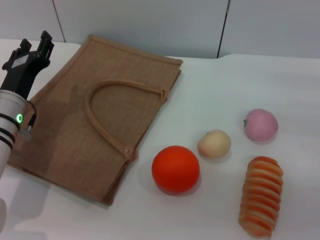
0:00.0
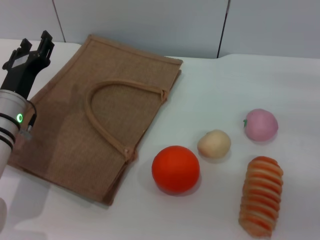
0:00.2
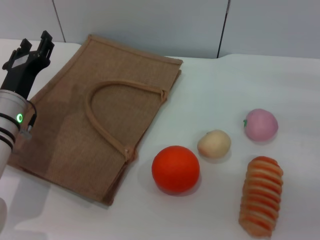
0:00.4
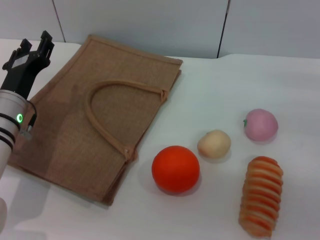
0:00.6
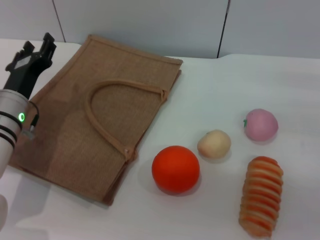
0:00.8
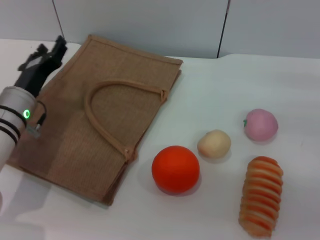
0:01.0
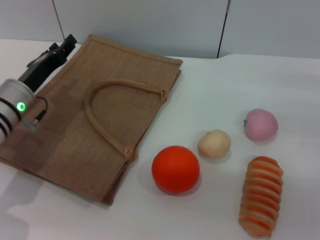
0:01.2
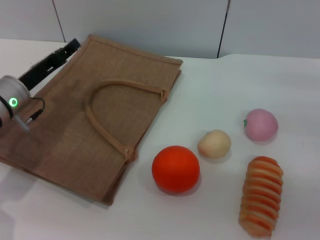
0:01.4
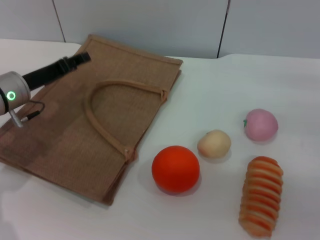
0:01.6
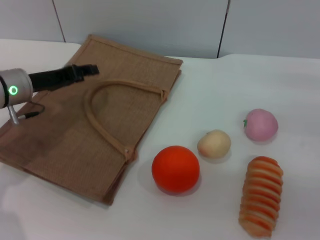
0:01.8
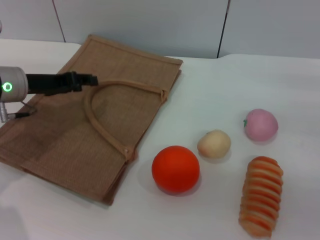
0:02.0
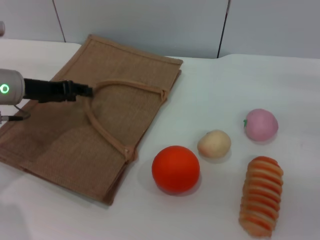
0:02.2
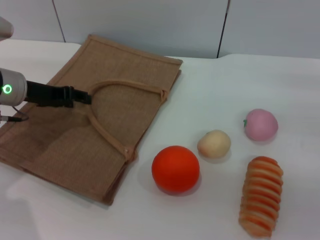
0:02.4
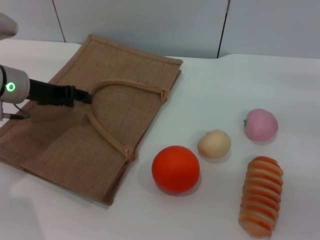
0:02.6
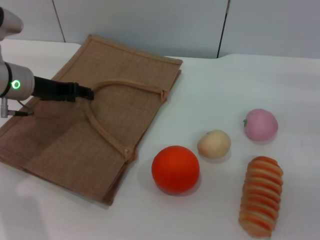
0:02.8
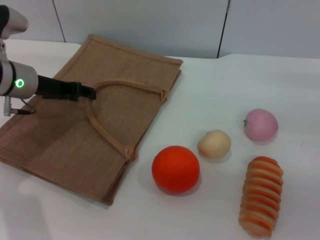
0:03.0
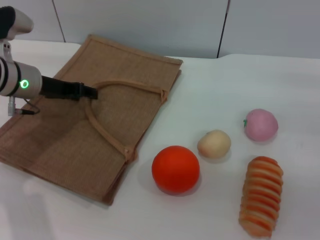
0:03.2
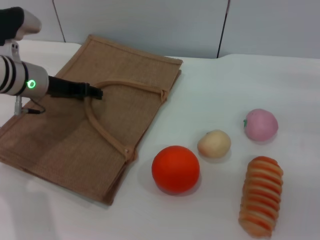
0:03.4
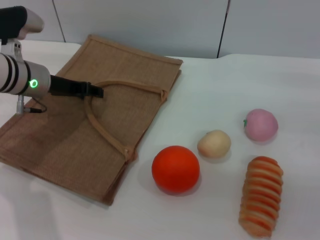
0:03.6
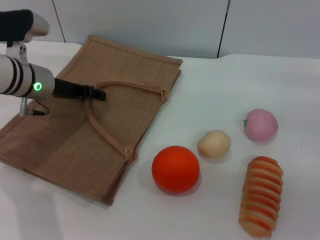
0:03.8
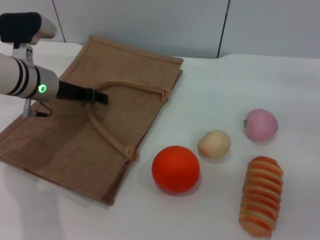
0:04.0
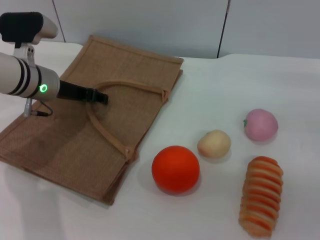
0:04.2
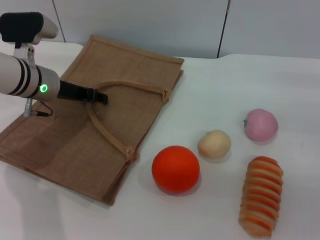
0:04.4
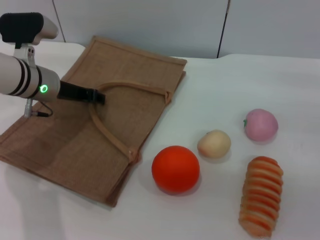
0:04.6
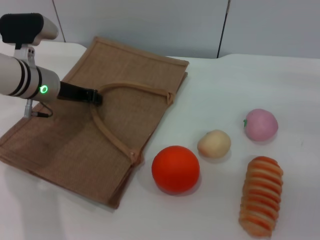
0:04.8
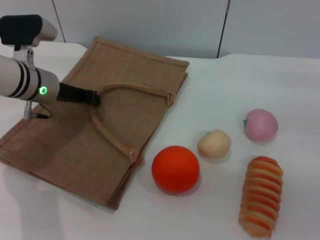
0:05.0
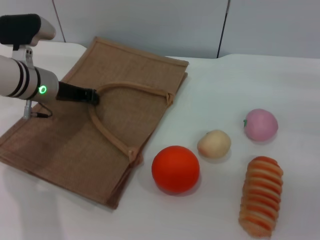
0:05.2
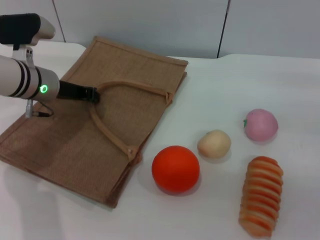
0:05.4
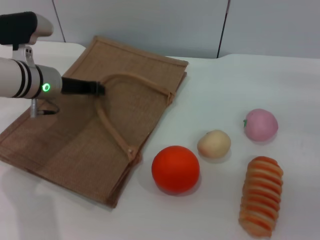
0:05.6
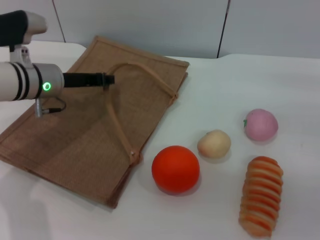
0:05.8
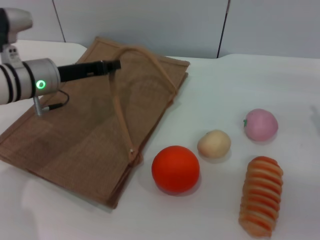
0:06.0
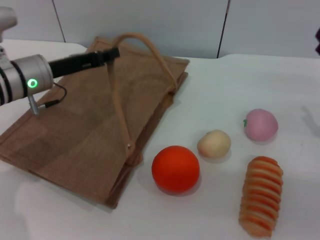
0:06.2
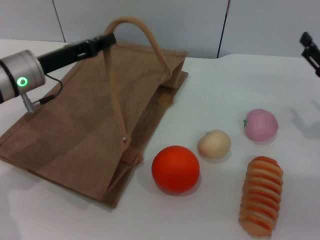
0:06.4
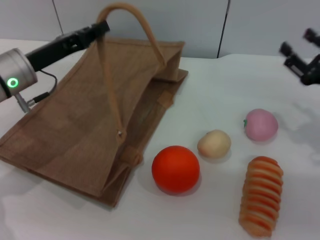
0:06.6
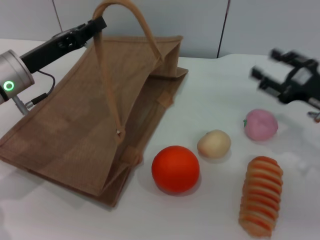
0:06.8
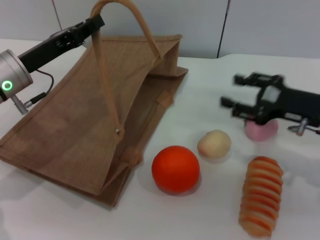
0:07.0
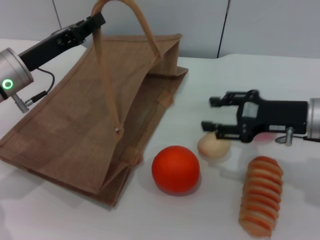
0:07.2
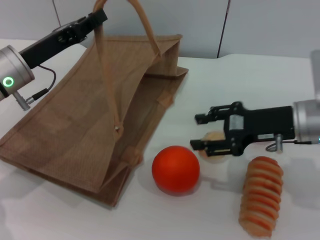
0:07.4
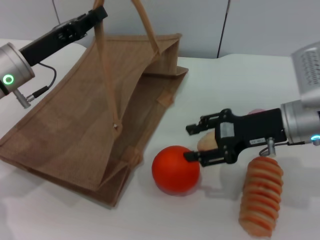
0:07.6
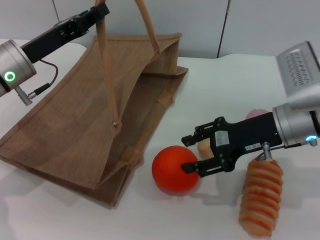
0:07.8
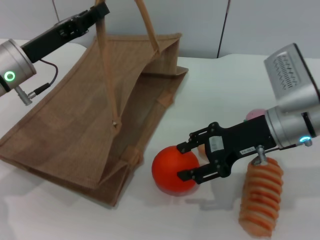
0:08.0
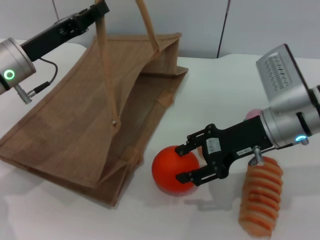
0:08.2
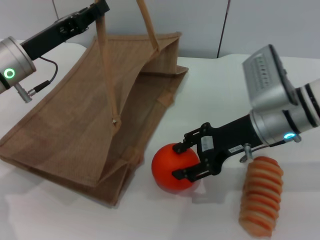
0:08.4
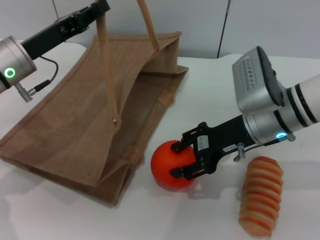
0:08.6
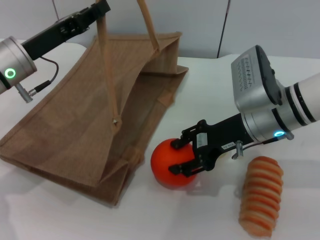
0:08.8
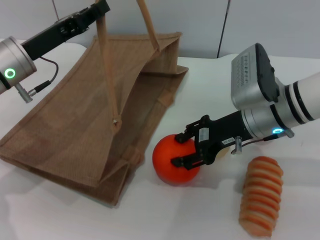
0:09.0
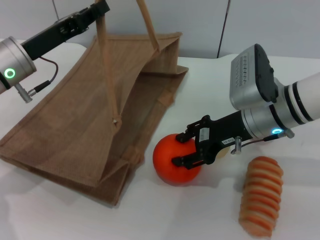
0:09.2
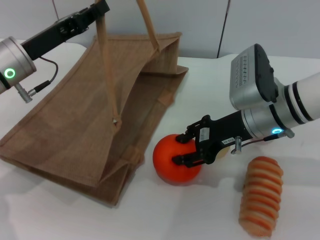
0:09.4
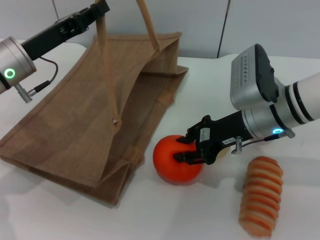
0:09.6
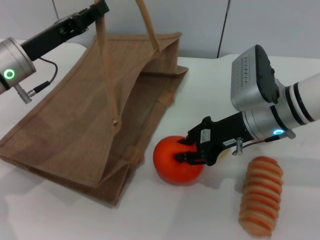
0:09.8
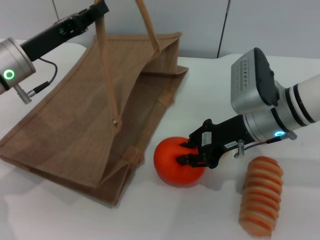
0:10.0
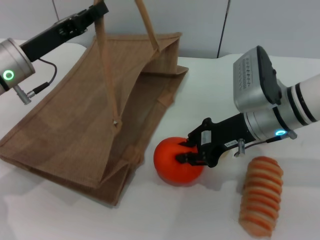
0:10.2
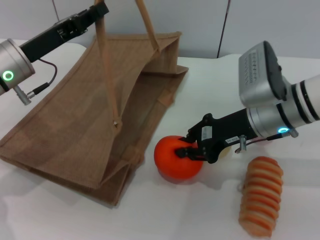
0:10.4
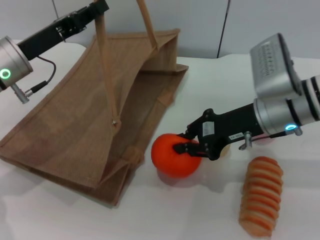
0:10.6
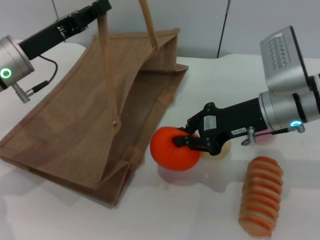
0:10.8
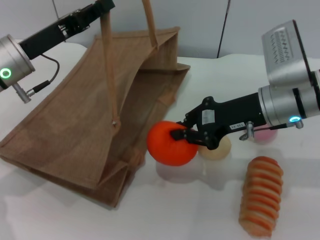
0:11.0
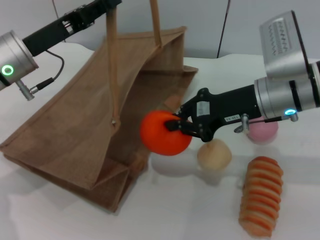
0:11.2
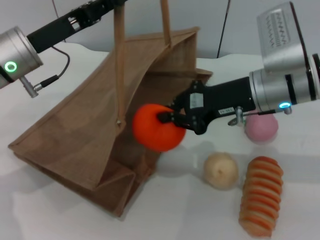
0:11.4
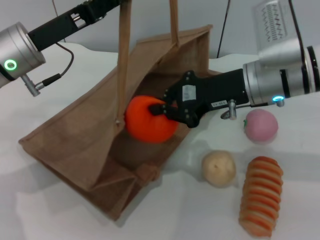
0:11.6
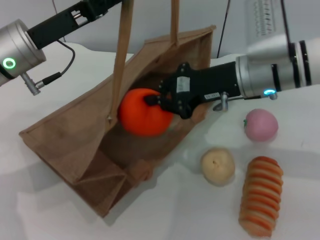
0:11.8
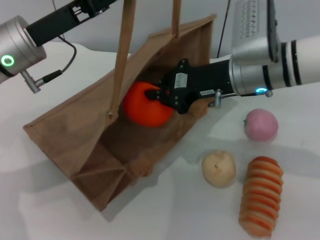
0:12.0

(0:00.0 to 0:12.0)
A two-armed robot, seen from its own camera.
Task of the whole recording: pick up the orange and peach from the table and place it in the brown handbag.
Step, 0:00.0 - 0:06.0: Lift the woven bag with the left gripper to open it.
Step, 0:06.2 - 0:11.2: Pick up the orange with the right gripper.
0:00.0 - 0:01.6: The left gripper moves roughly 5 cm.
0:01.6 - 0:03.0: The left gripper ends up some 5 cm from where it was.
0:03.0 - 0:04.4: There are only small adjustments of the grippers.
0:04.4 - 0:06.0: The left gripper closes up.
0:06.0 - 0:07.6: The right gripper goes some 15 cm to the left.
0:07.6 - 0:09.0: The right gripper changes place by approximately 5 cm.
0:09.0 - 0:10.4: The right gripper closes up.
0:10.4 - 0:12.0: The right gripper ends up roughly 5 cm from where it was. The left gripper shifts by about 5 cm.

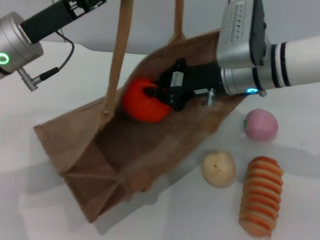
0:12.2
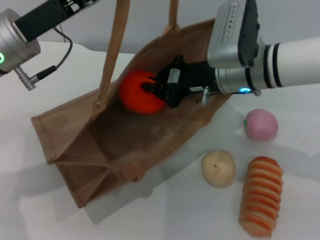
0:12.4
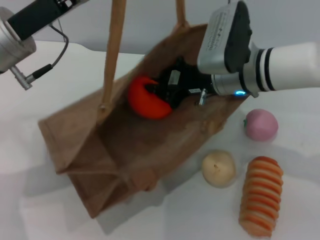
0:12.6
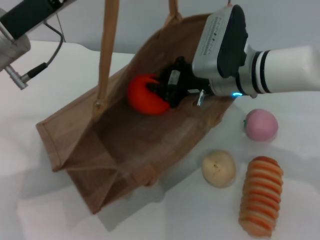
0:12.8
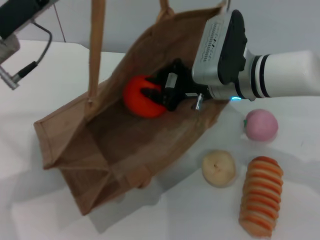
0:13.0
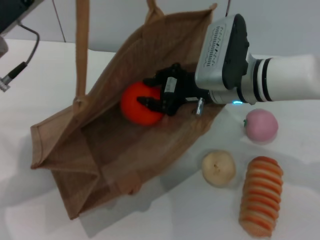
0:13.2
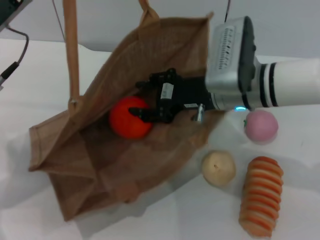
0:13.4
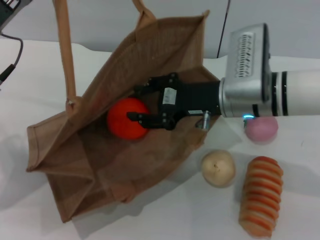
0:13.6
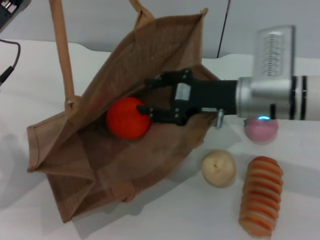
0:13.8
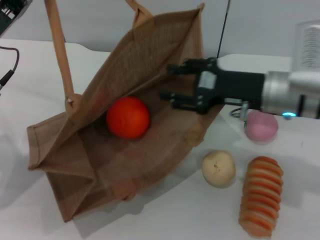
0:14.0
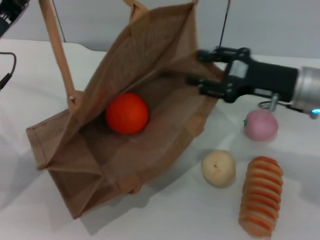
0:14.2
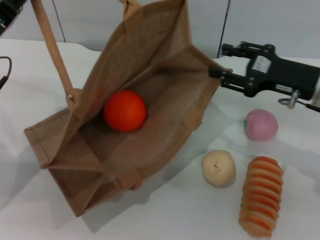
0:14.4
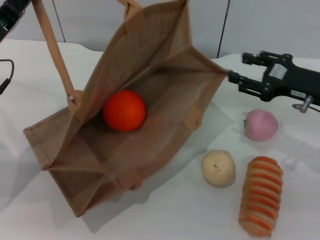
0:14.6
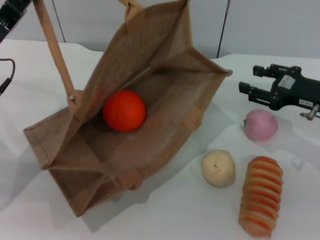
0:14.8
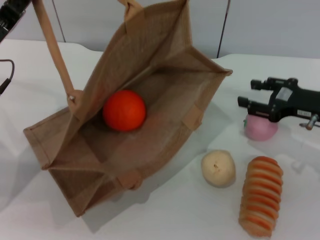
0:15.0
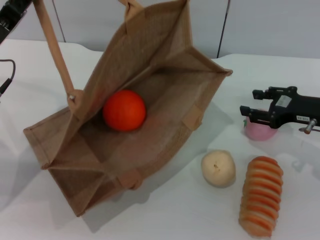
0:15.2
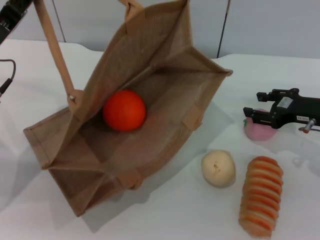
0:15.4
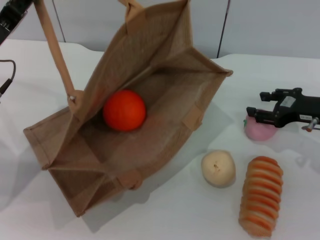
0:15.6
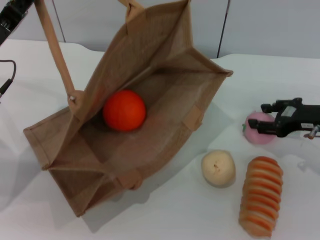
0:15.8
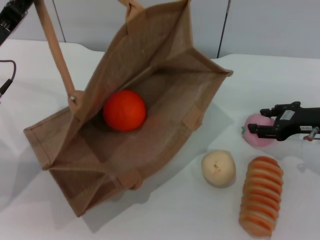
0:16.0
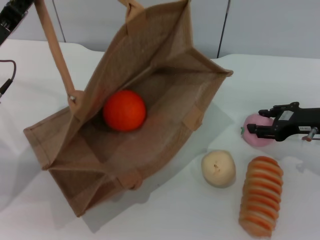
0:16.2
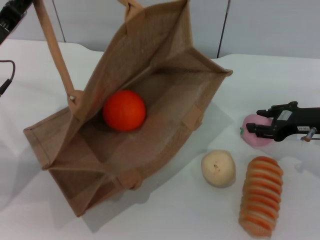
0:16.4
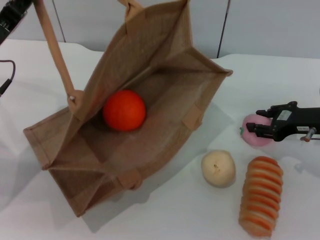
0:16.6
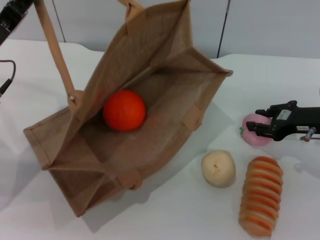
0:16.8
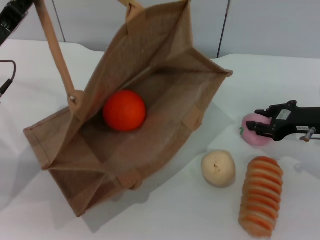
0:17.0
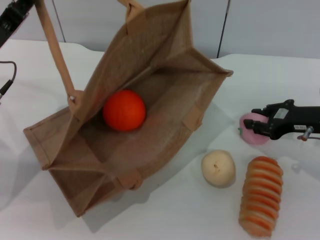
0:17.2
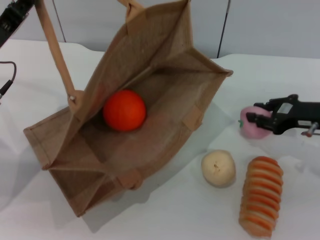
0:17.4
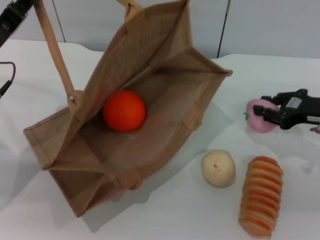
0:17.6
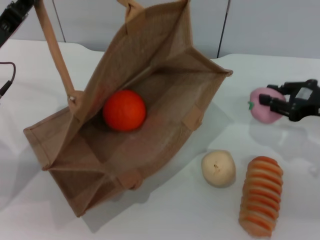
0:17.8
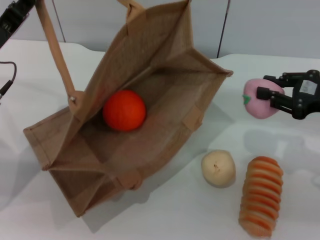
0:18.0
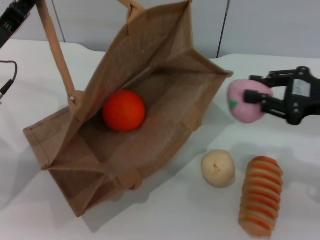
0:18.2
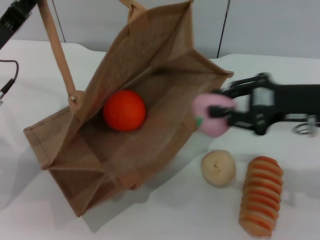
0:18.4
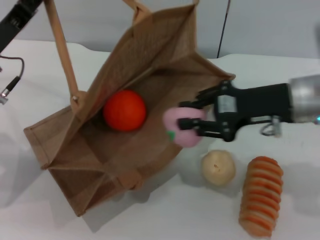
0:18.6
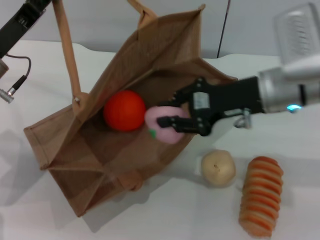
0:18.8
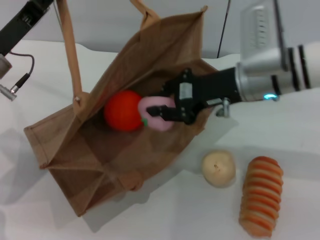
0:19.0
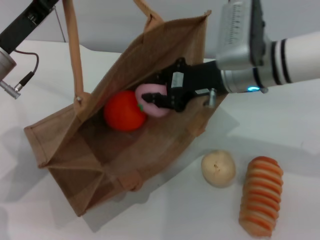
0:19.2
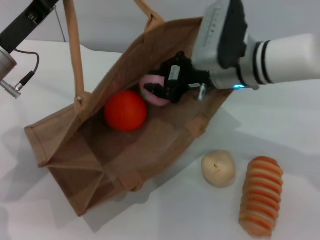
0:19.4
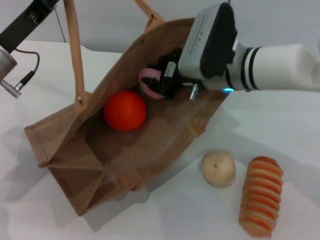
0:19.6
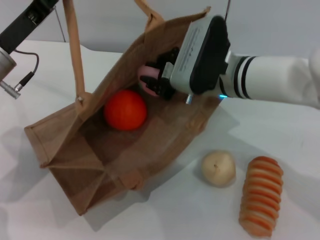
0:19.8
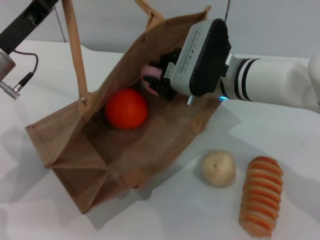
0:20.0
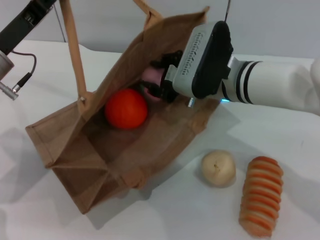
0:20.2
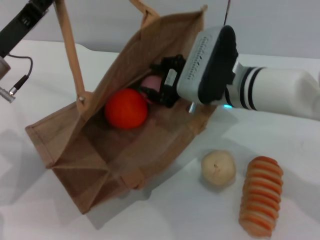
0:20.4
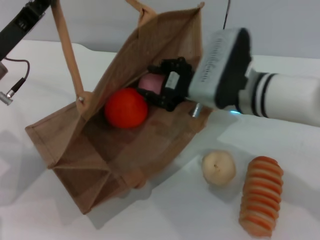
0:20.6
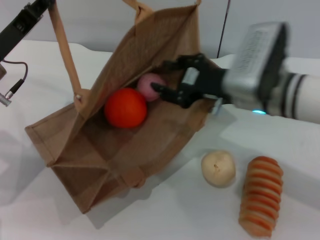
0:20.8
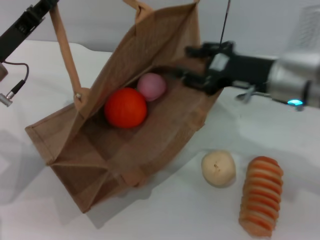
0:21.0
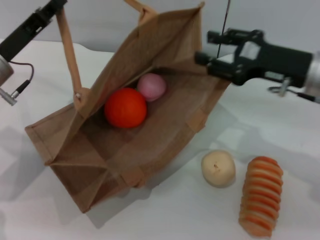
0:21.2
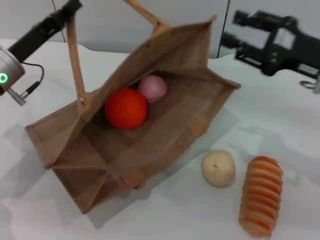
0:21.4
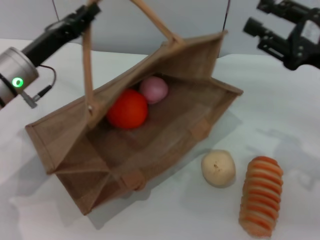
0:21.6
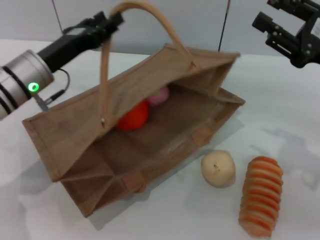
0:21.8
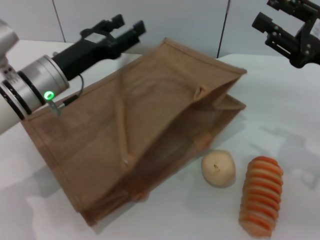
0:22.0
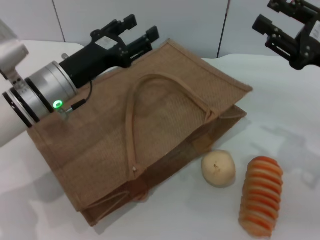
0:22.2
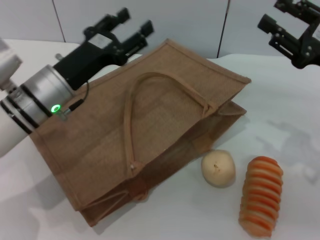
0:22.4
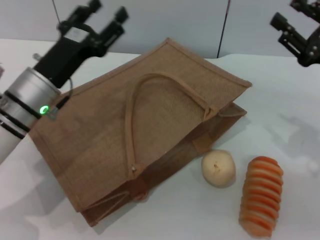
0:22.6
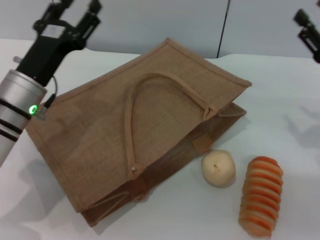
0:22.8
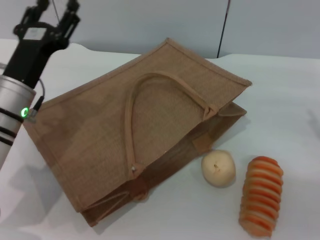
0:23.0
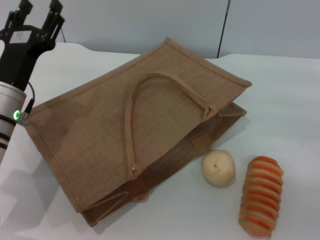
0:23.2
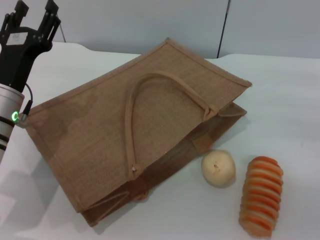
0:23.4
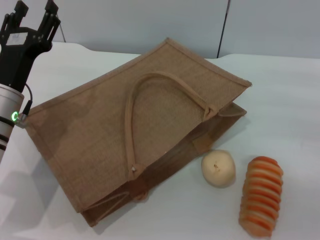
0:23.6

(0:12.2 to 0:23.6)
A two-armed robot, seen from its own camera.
Task of the whole recording: pick up the orange and peach from the table and place it in the brown handbag.
Step, 0:12.2 - 0:14.2: Place the orange into the woven bag with the right gripper.
Step, 0:14.4 - 0:17.8: Pick up the peach with the right gripper.
Step, 0:18.0 - 0:21.0: Place the peach into the woven bag with the right gripper.
Step, 0:21.2 - 0:22.2: Lower the woven bag with the left gripper to close it.
0:12.2 - 0:13.6: The right gripper opens. Meanwhile the left gripper shifts about 5 cm to the left.
0:13.6 - 0:15.0: The right gripper moves to the right, some 15 cm.
0:15.0 - 0:16.4: The grippers make only small movements.
0:16.4 - 0:17.8: The right gripper closes its fingers.
0:17.8 - 0:19.4: The right gripper is displaced to the left by roughly 20 cm.
0:19.4 - 0:20.8: The right gripper heads backward, covering some 5 cm, and opens up.
0:20.8 - 0:22.2: The left gripper shifts some 10 cm to the right, and opens. The right gripper shifts roughly 15 cm to the right.
0:22.2 - 0:23.6: The right gripper shifts roughly 10 cm downward and to the right. Meanwhile the left gripper shifts by roughly 5 cm.
